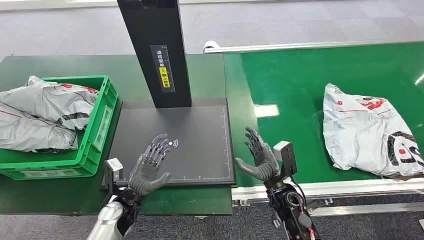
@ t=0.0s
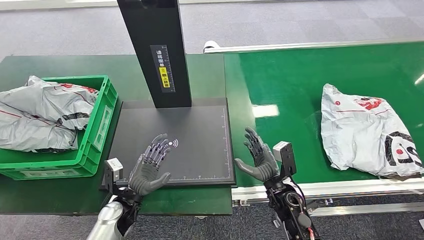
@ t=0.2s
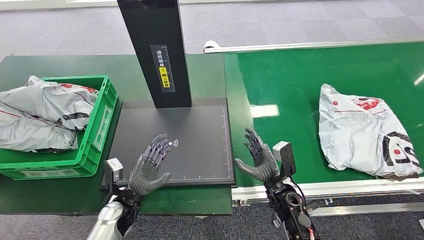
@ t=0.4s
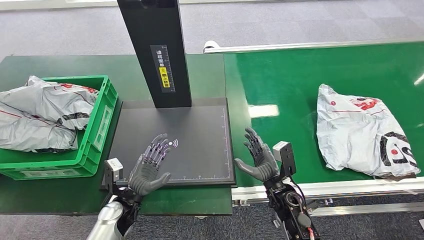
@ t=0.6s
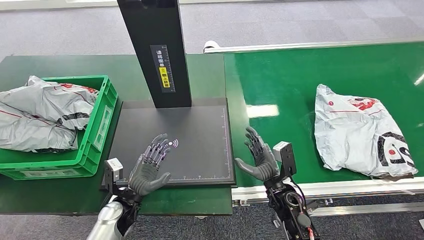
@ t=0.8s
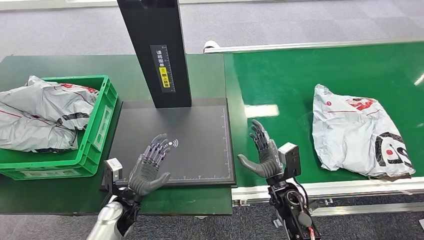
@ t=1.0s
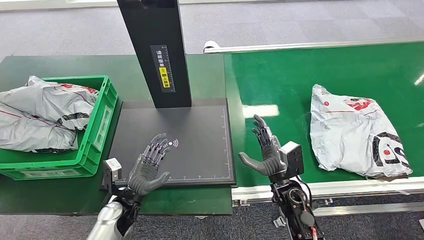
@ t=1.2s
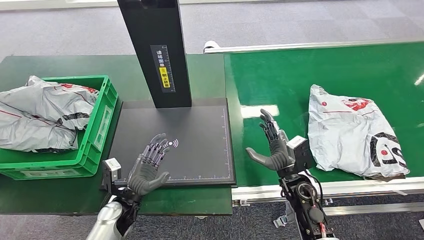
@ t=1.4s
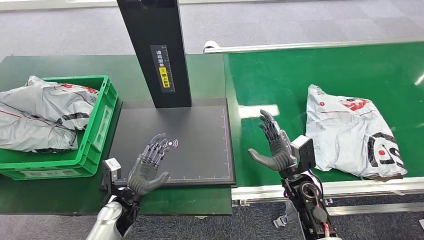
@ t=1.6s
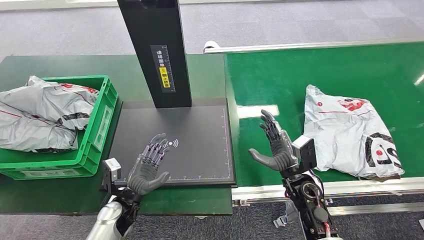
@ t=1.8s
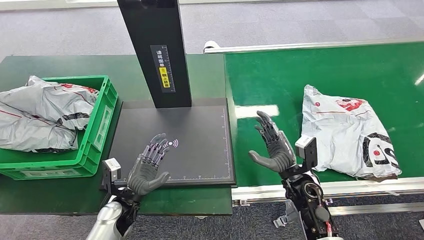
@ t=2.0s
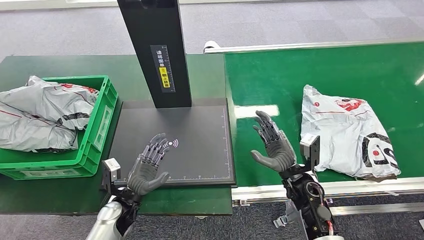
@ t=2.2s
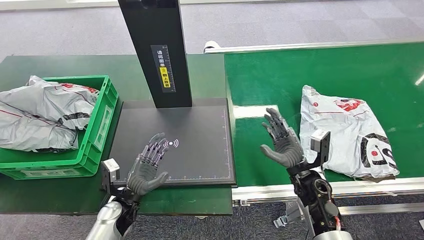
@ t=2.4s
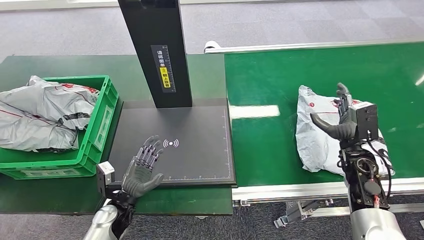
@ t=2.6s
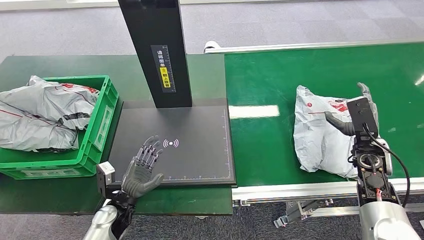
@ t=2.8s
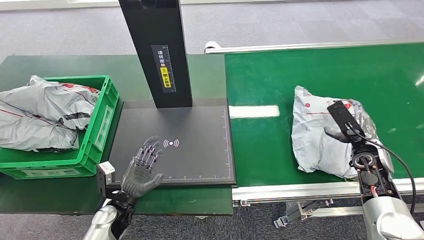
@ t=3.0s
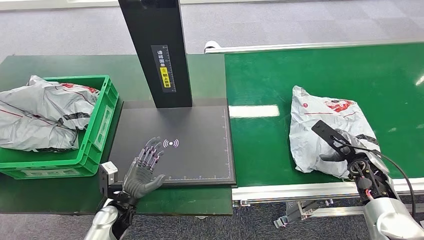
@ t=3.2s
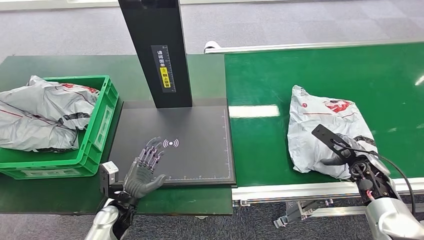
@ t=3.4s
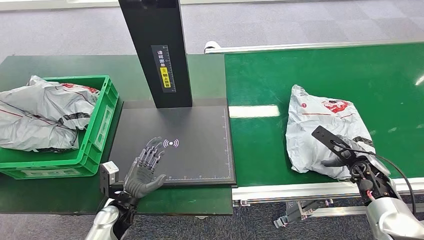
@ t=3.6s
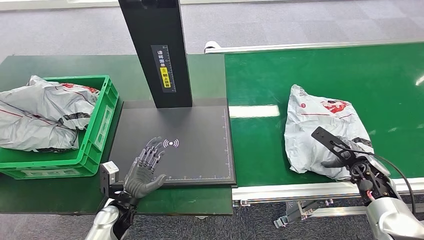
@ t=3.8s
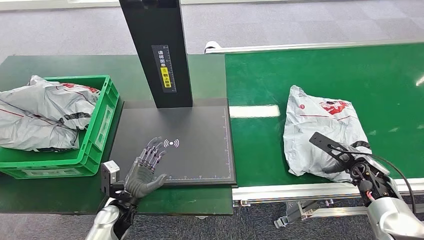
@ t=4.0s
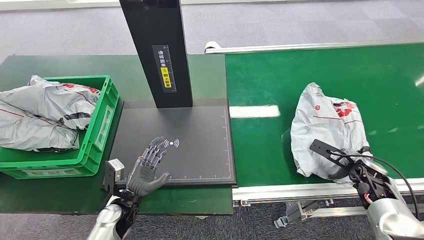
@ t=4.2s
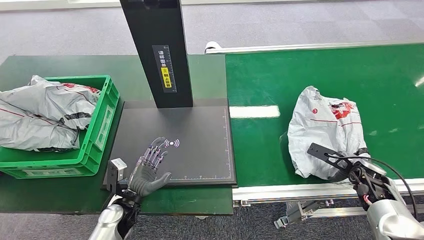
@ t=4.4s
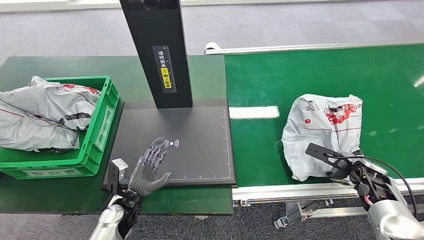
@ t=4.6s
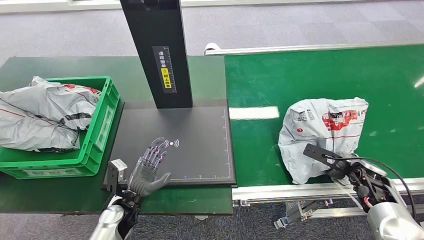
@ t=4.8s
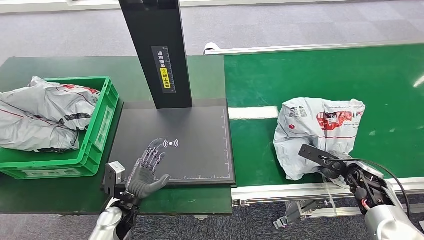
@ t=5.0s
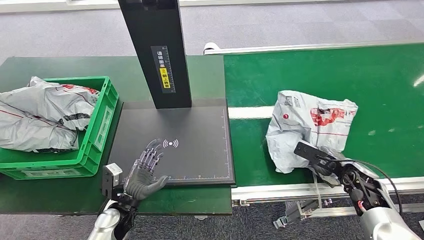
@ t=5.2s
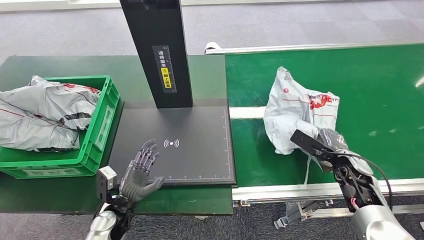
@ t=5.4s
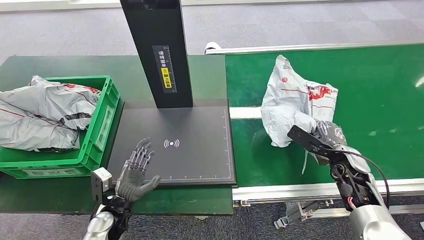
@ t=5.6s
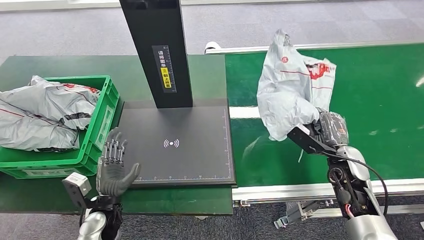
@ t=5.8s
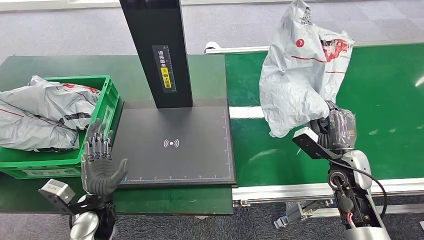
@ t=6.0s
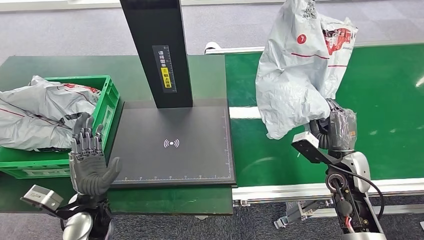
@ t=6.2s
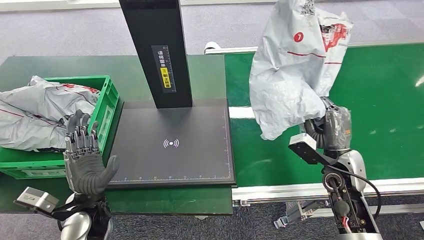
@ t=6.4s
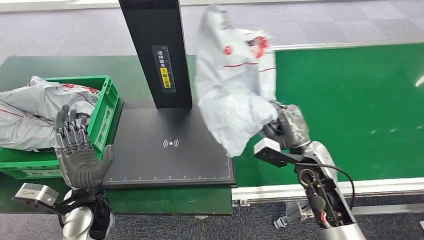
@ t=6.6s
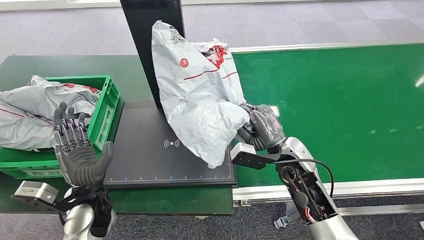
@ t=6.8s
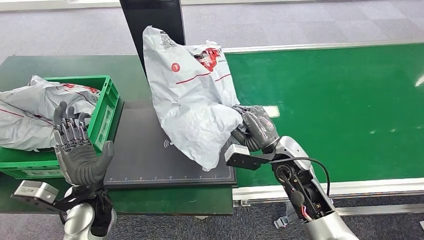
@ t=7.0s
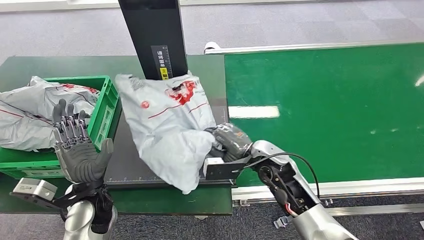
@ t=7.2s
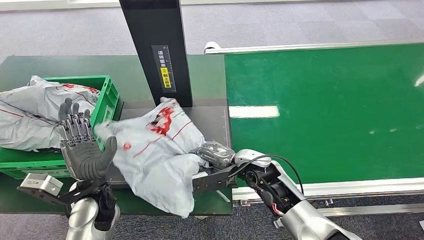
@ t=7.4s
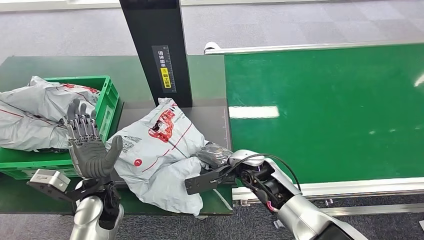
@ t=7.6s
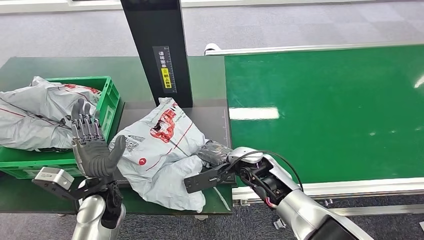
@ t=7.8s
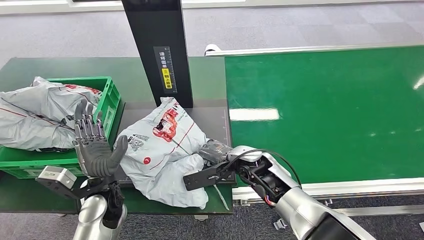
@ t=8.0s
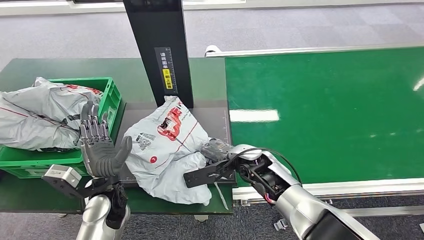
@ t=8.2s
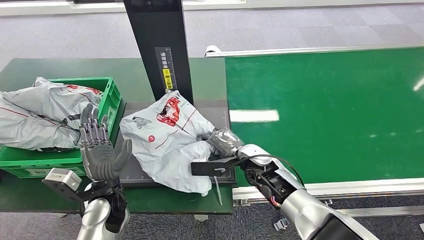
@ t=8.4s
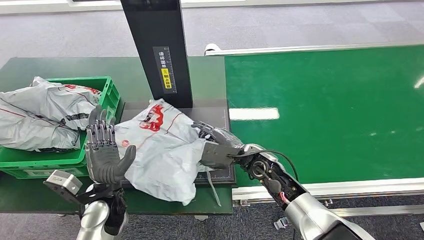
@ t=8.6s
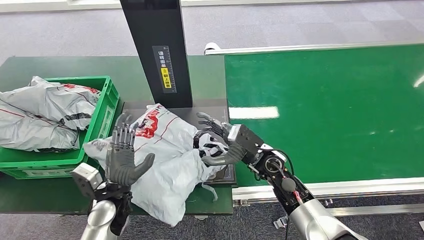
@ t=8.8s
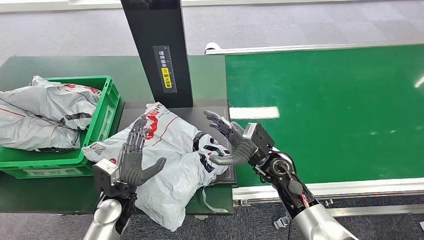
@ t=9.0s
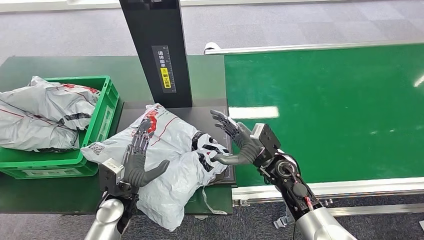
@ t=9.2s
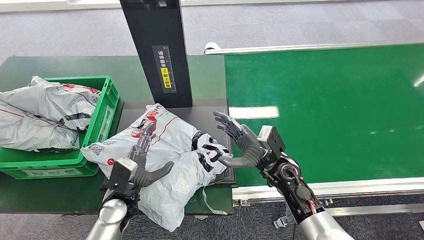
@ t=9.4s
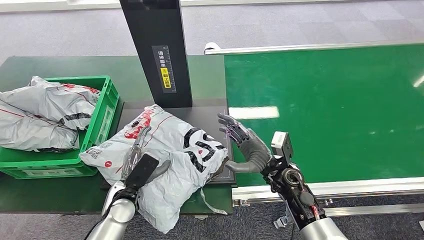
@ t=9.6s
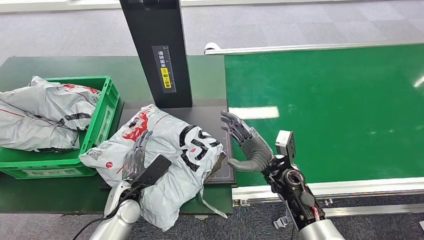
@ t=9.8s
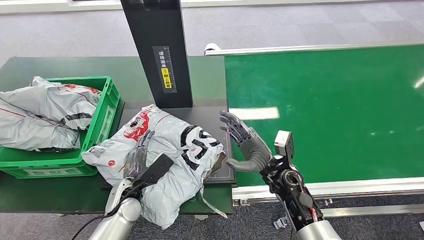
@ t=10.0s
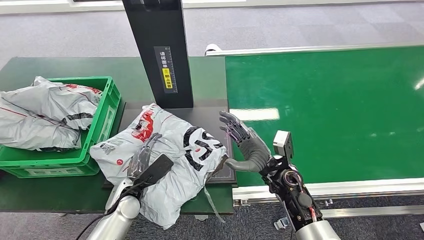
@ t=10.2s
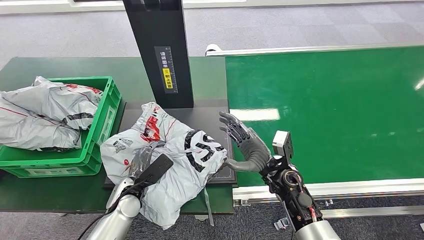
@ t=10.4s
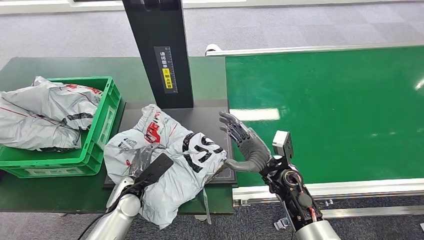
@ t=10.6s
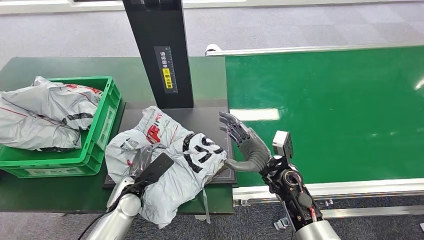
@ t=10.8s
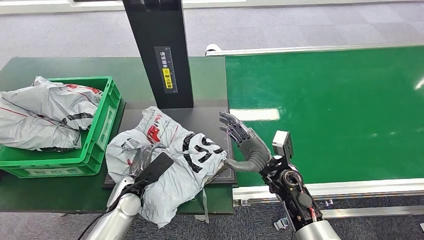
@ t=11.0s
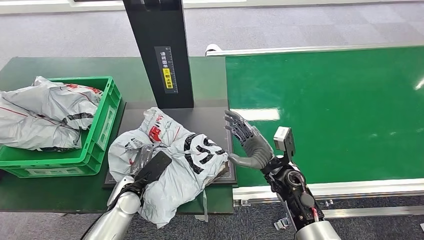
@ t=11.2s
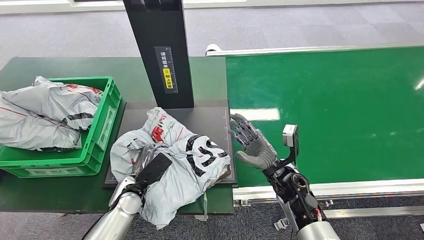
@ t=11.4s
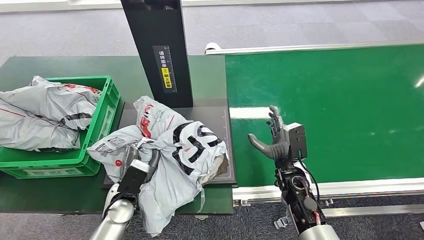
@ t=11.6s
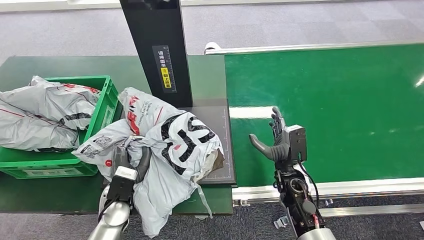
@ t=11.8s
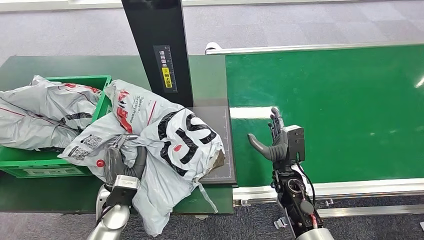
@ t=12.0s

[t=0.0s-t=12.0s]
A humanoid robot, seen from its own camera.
Step, t=0.0s to t=6.4s: Pick up the package from the conveyor belt.
Step, t=6.8s to t=9.6s: Place the package onto the inbound machine.
t=1.6s to t=3.0s: The right hand is displaced to the right by approximately 20 cm.
t=3.0s to t=4.4s: The right hand travels downward by about 5 cm.

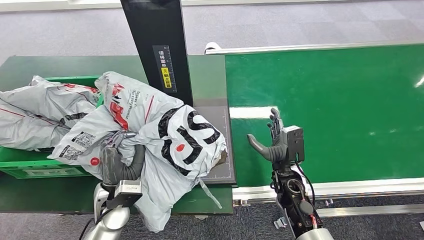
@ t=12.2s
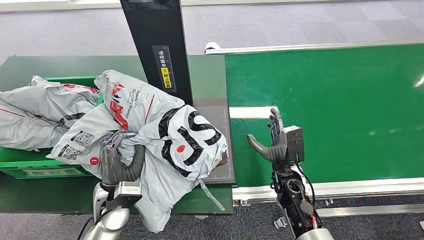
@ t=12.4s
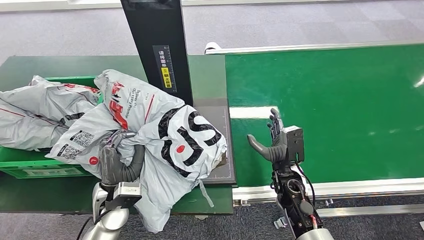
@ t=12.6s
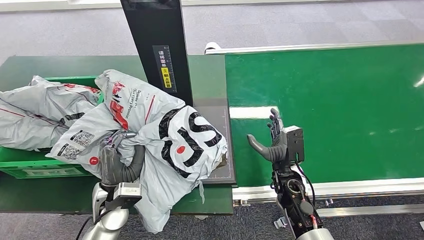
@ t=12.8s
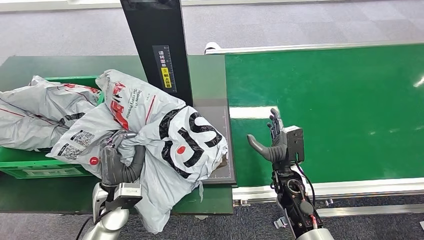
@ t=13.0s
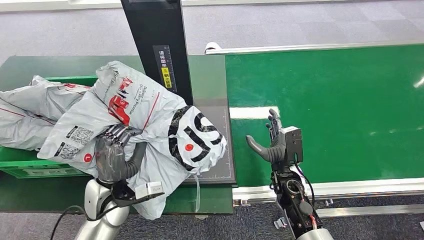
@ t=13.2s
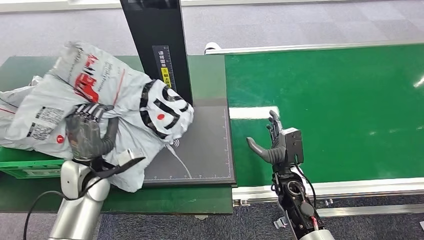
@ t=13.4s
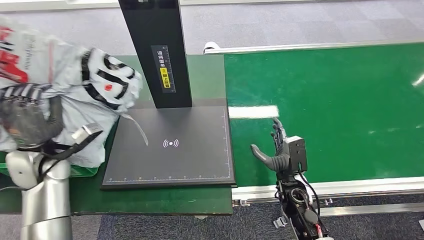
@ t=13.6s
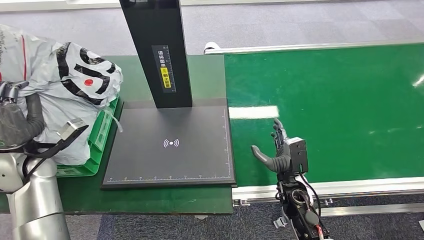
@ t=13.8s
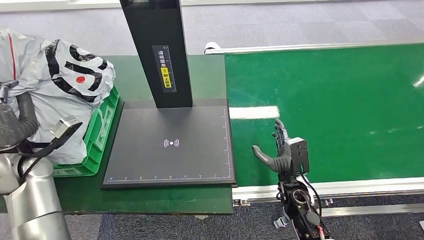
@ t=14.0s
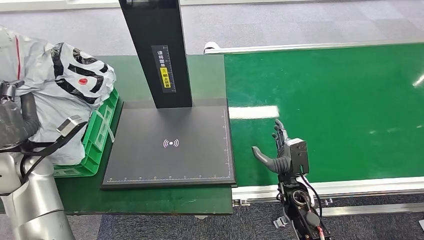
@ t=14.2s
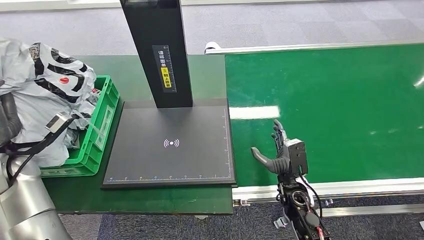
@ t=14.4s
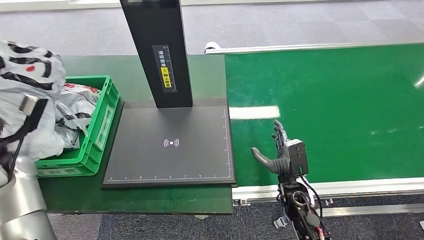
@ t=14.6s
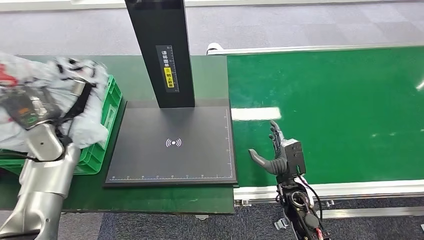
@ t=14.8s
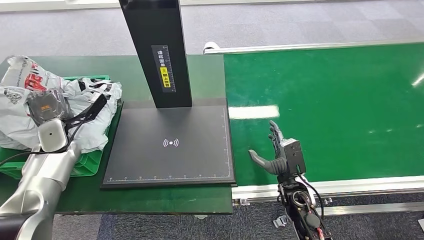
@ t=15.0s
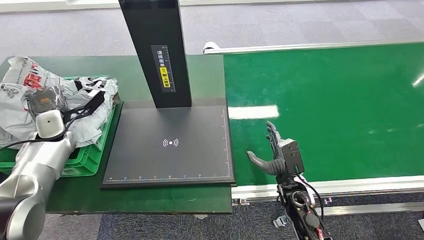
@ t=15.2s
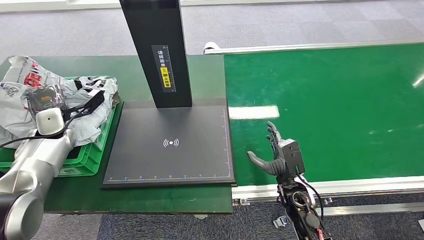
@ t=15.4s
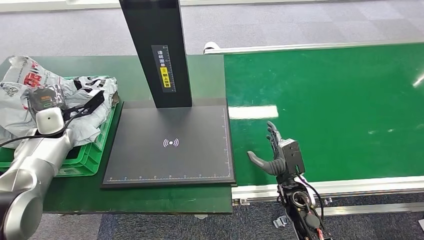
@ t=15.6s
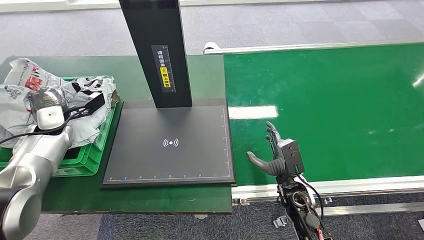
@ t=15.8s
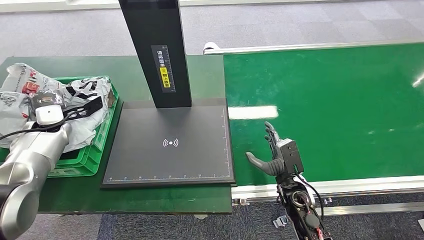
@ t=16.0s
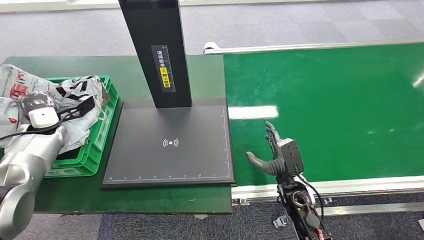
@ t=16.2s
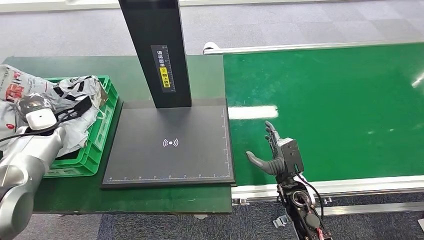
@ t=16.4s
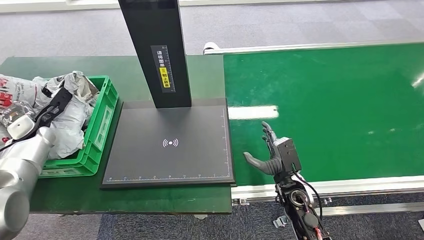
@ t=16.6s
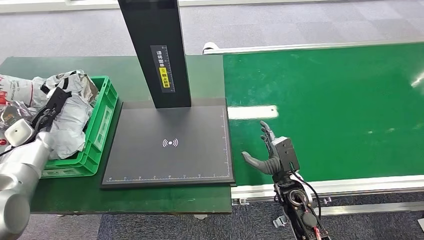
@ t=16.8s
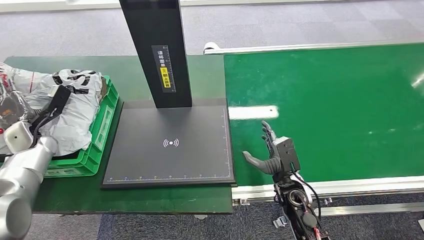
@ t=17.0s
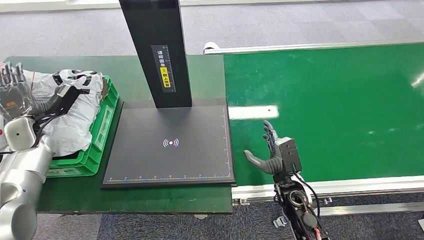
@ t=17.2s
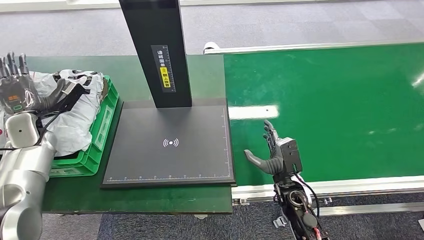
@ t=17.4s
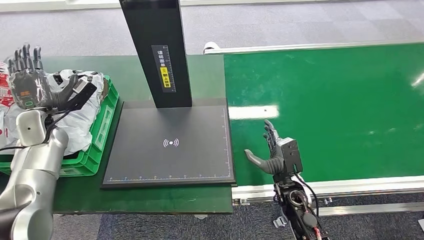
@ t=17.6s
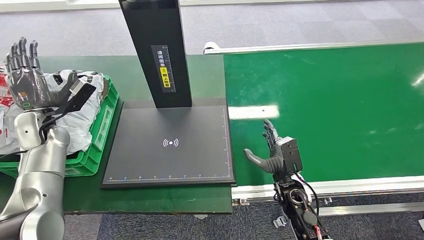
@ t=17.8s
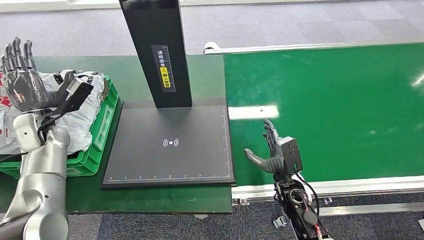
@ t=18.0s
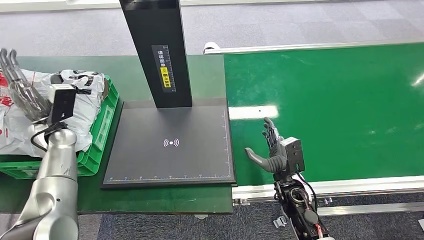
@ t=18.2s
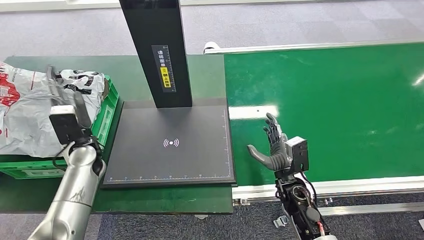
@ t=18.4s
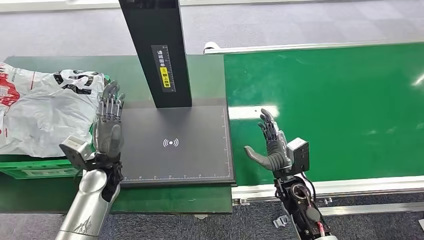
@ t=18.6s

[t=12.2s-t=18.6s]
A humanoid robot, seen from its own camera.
Step, t=12.8s to t=18.4s: Place the package into the parcel locker.
t=13.8s to t=15.4s: The left hand goes approximately 10 cm forward.
t=15.4s to t=17.0s: The left hand is displaced to the left by roughly 5 cm.
t=17.0s to t=18.6s: The left hand is displaced to the right by roughly 25 cm.
